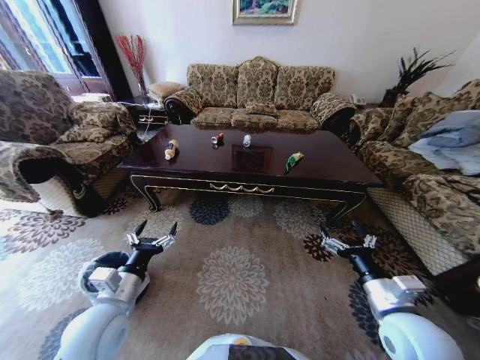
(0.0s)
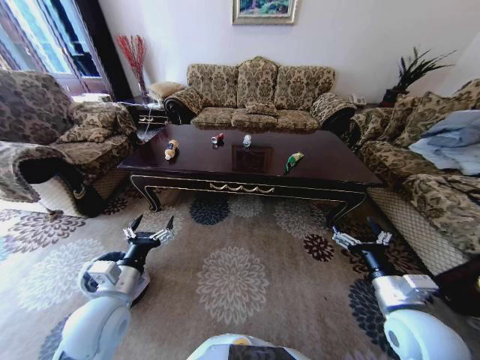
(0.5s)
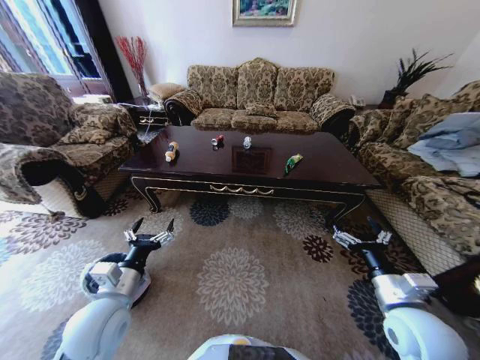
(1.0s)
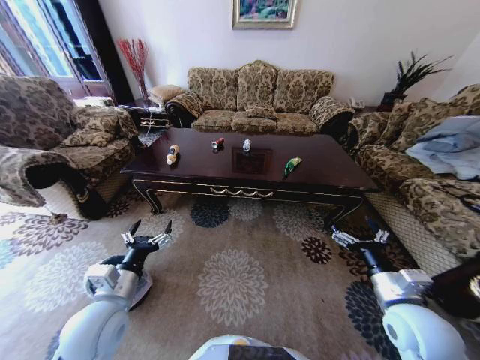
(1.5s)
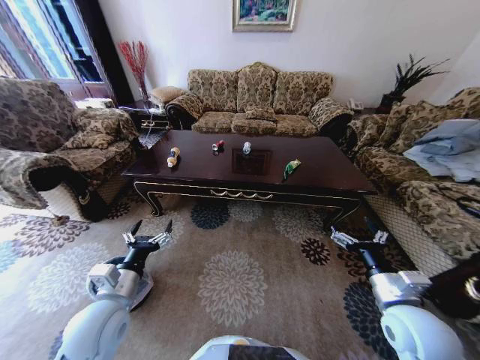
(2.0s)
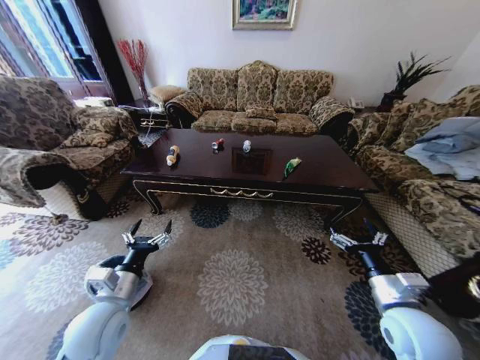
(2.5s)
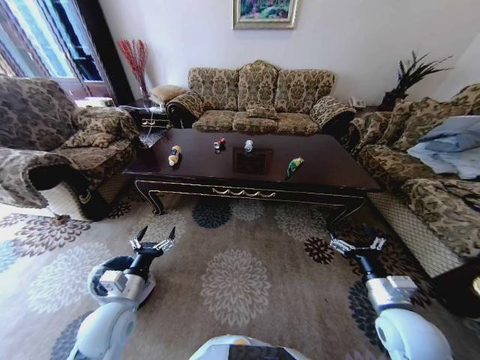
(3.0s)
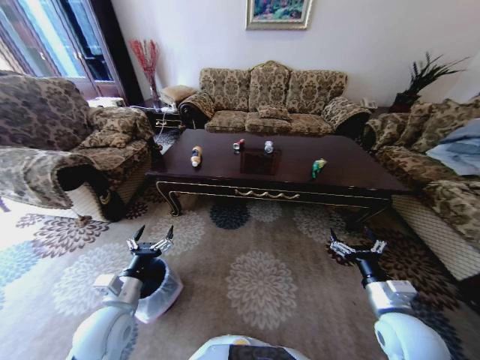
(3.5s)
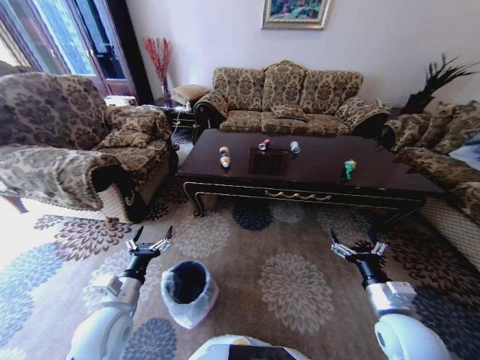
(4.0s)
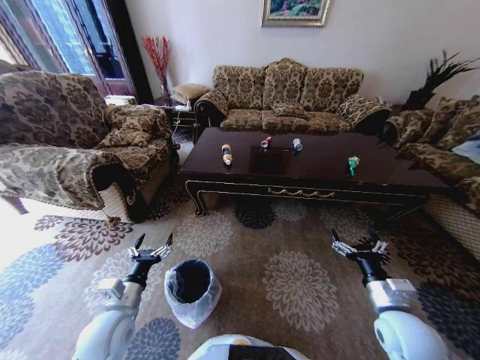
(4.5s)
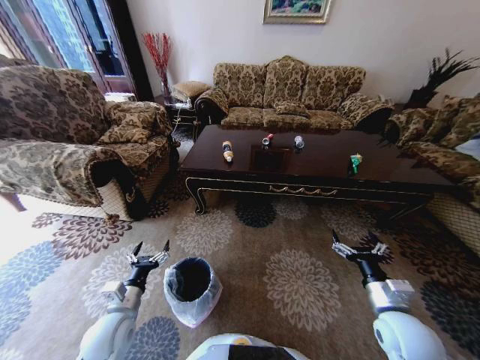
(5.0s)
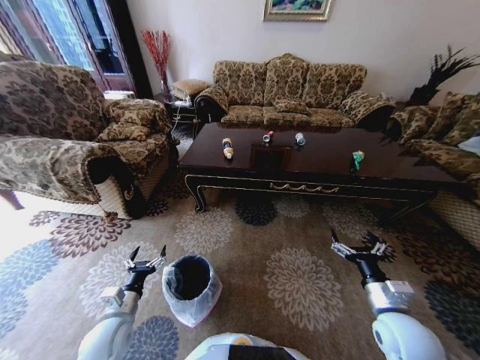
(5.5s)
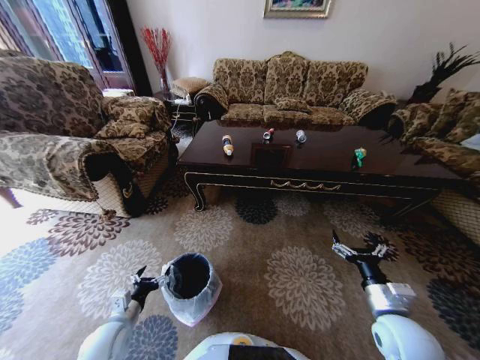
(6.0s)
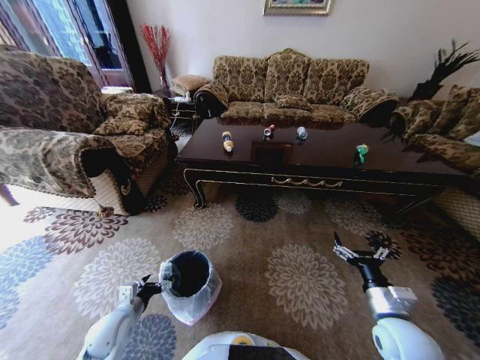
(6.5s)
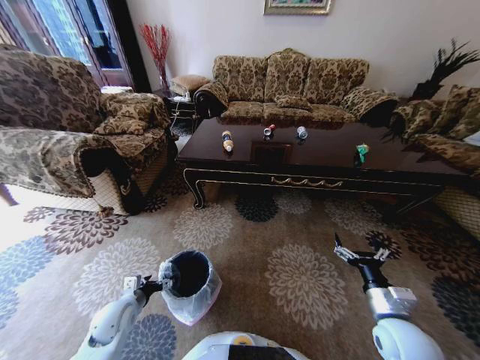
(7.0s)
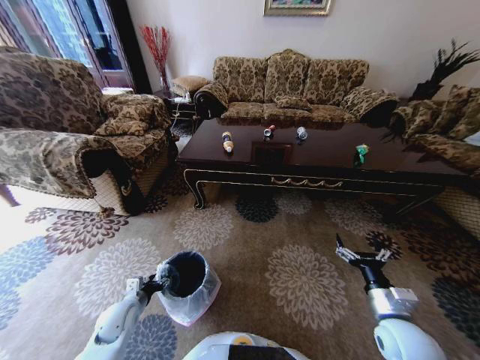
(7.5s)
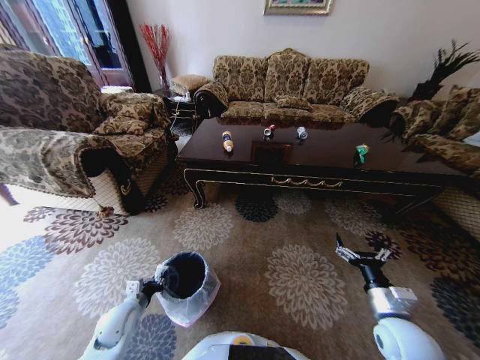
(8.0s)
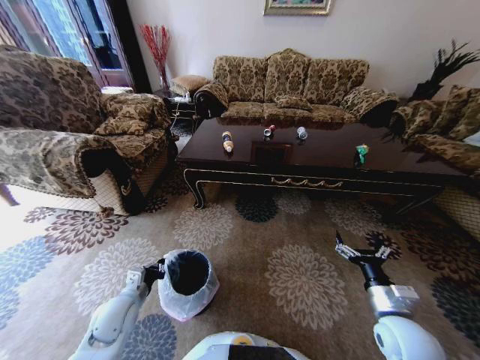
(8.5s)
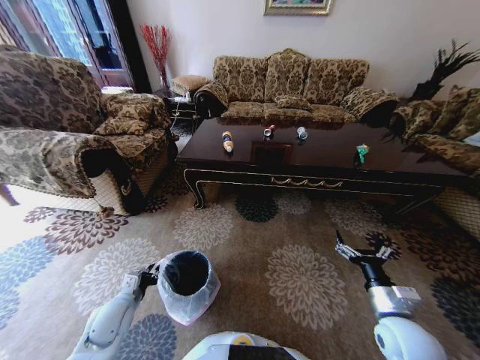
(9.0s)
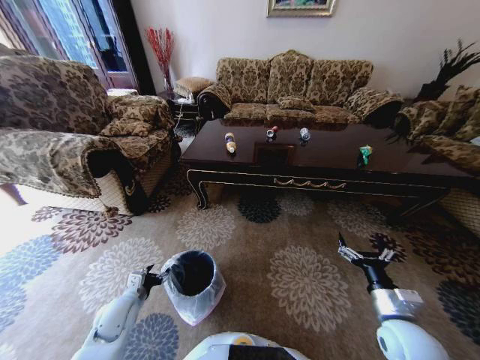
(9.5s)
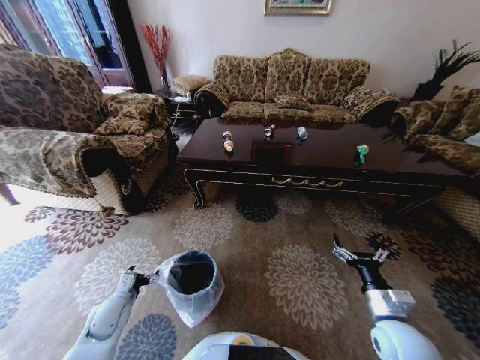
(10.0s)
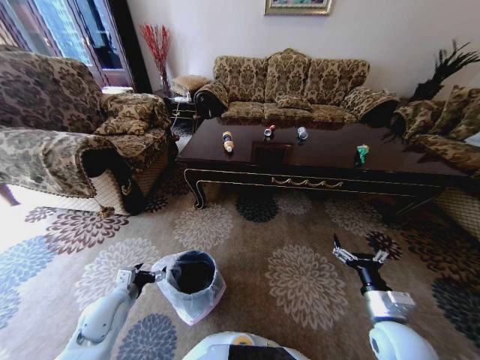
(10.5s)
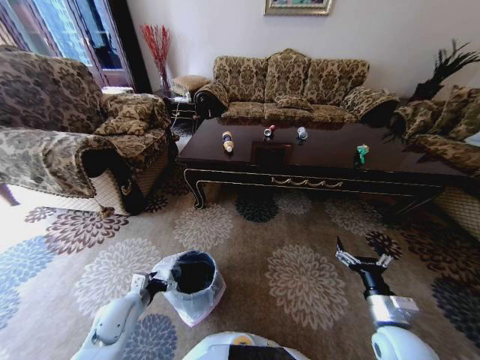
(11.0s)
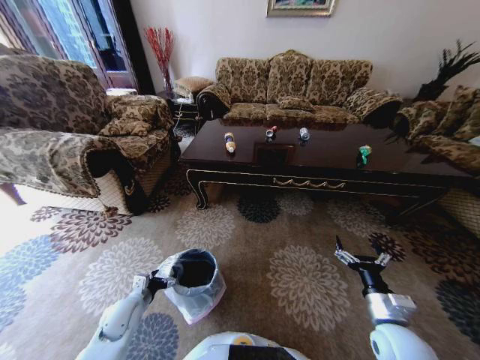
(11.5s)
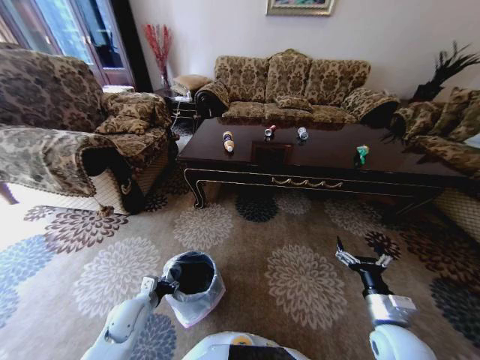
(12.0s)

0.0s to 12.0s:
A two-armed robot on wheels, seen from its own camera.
Task of the whole recording: Move to the front of the table and place the trash on the table into the trash bin.
4.0s to 6.0s: The left gripper goes some 10 cm downward.
6.0s to 8.0s: The left gripper shifts by approximately 5 cm, and closes.
8.0s to 10.0s: The left gripper opens up.
10.0s to 12.0s: The left gripper is displaced to the right by some 5 cm, and closes up.

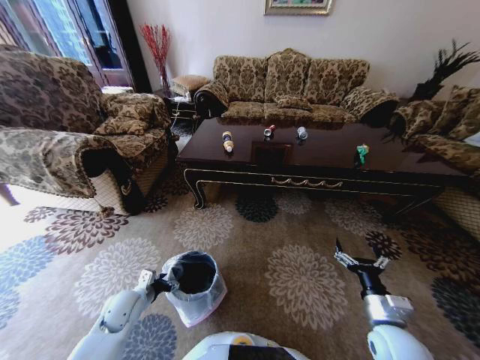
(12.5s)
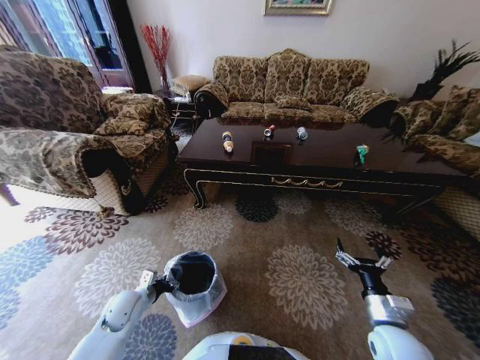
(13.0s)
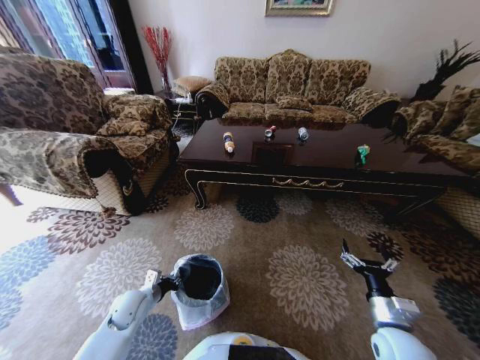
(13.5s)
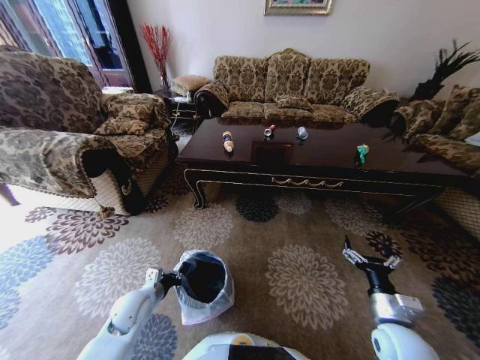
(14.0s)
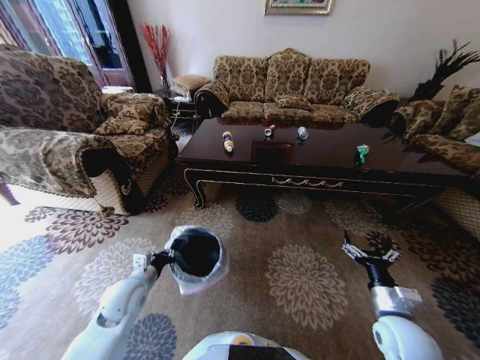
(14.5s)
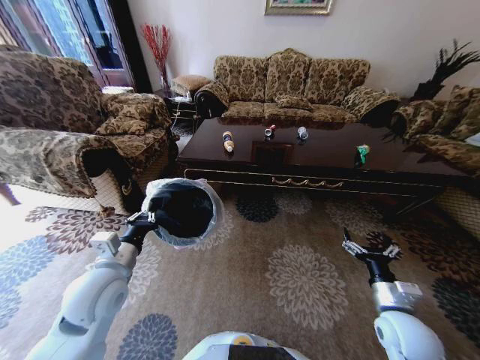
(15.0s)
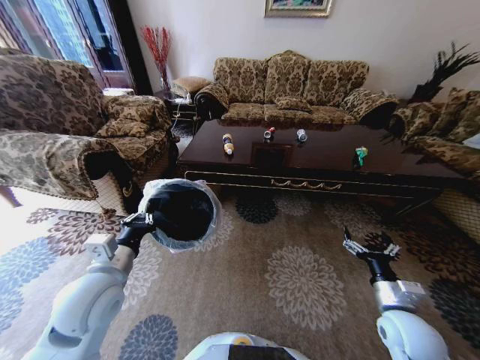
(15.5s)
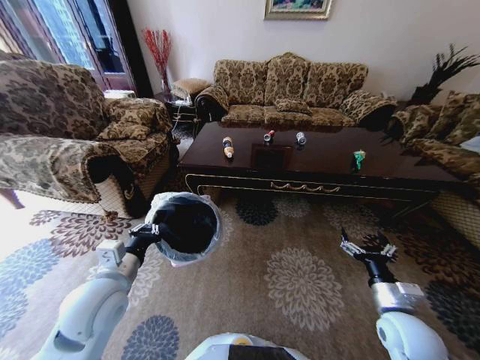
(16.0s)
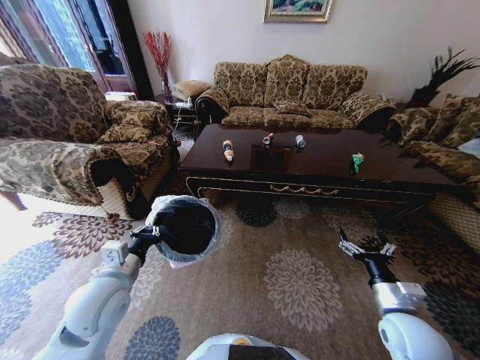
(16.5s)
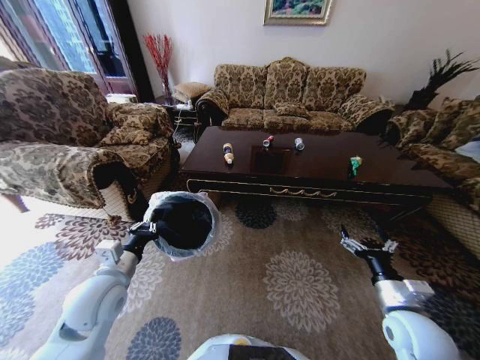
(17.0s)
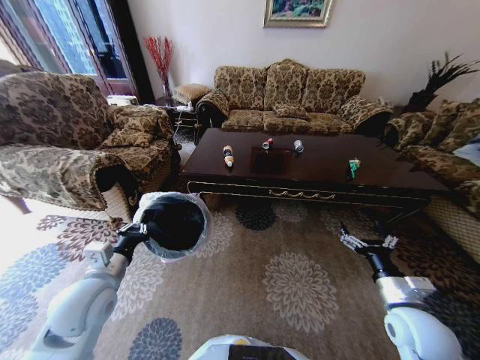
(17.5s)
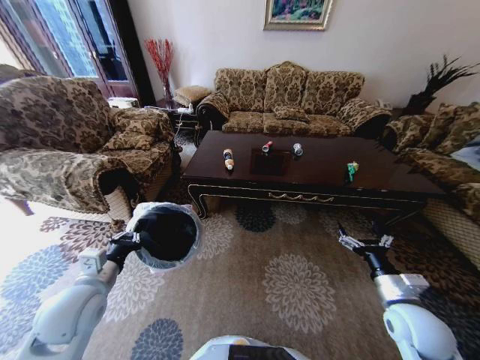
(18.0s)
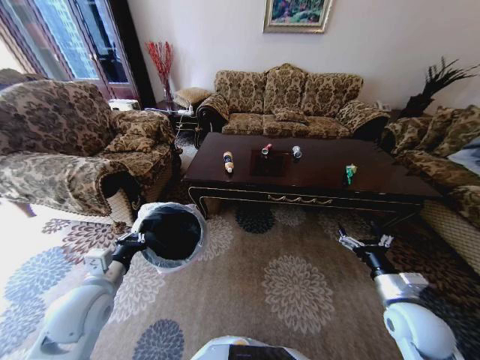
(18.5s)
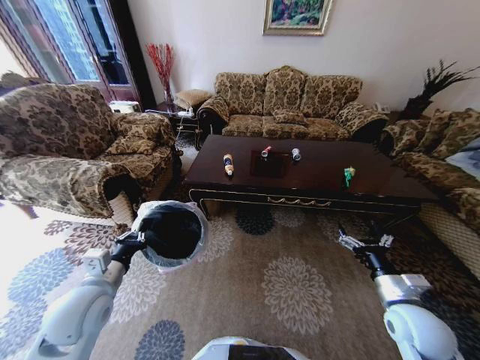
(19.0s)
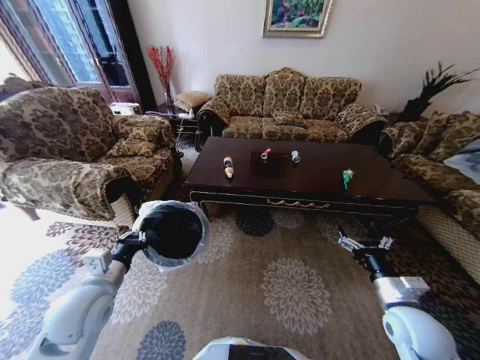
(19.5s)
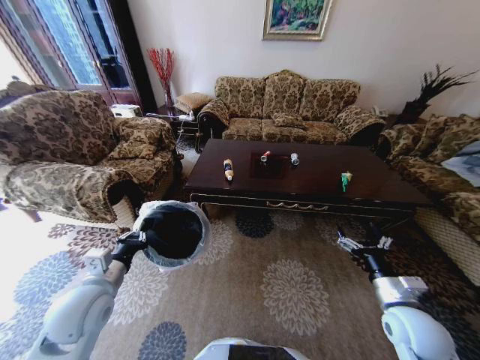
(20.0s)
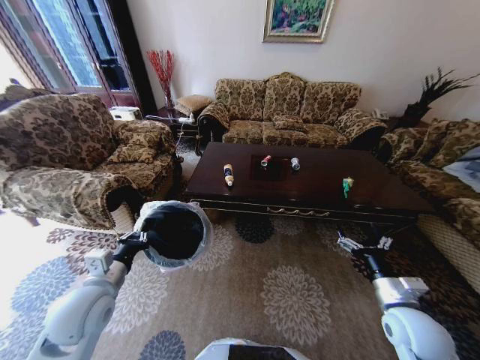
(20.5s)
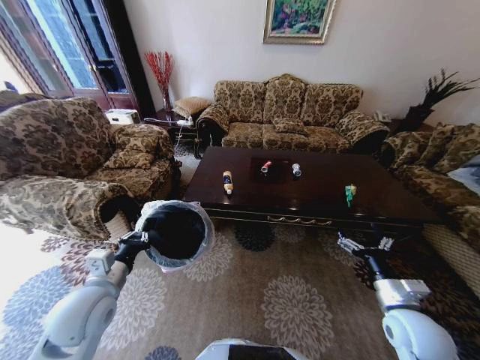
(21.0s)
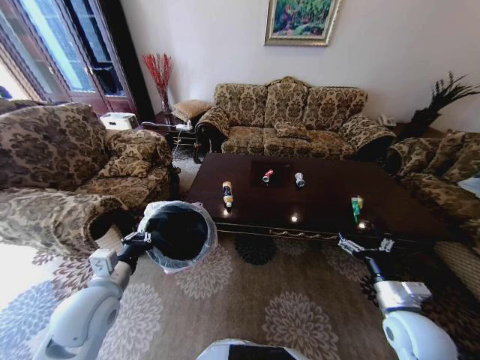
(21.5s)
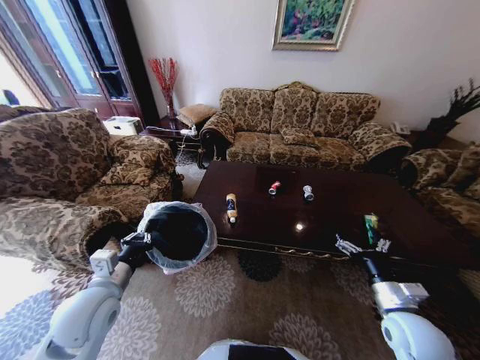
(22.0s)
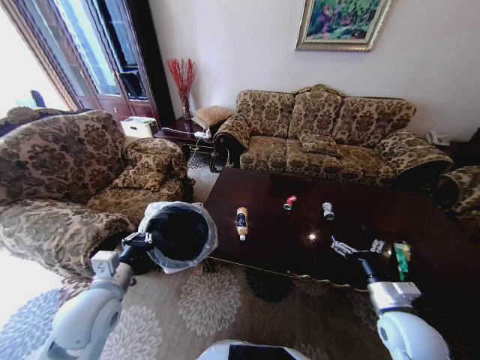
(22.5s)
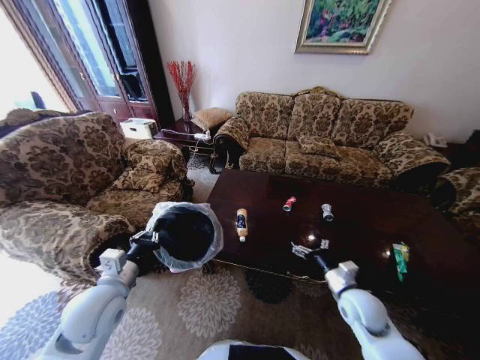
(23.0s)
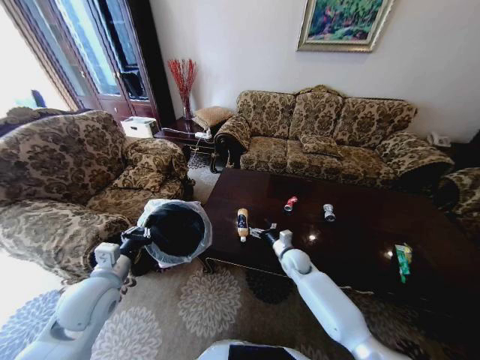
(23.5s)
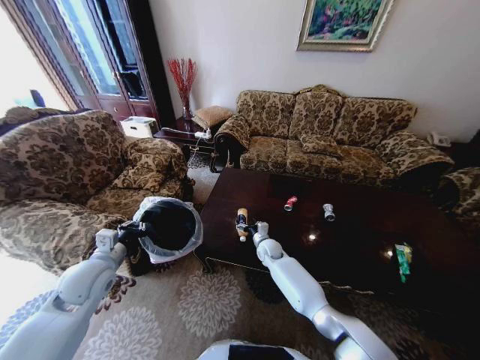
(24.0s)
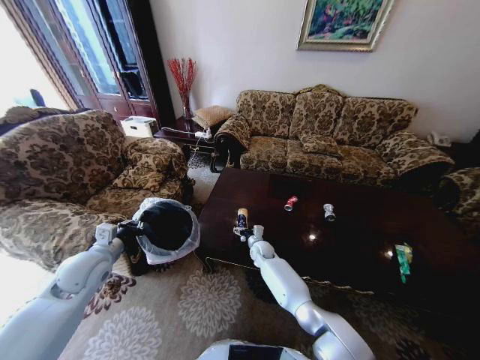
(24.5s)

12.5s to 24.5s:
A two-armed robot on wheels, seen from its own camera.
Task of the whole recording: Move to the front of the table and place the trash on the table into the trash bin.
12.5s to 14.5s: The left gripper goes approximately 10 cm upward, and closes its fingers.
14.5s to 16.5s: The left gripper heads upward, covering approximately 10 cm.
16.5s to 18.5s: The left gripper changes place by roughly 5 cm.
22.5s to 24.5s: The right gripper is displaced forward, to the left and downward by about 40 cm; the left gripper travels forward and to the left by approximately 10 cm.

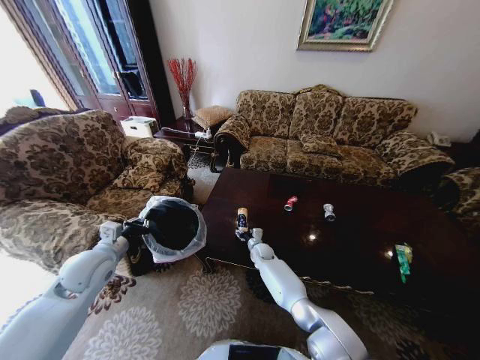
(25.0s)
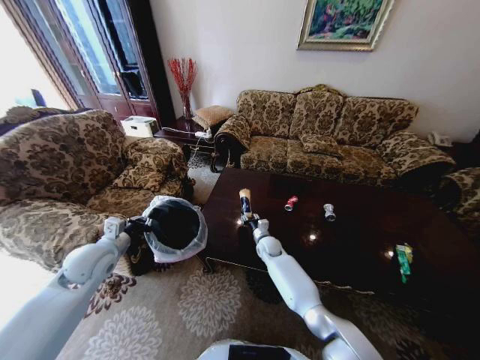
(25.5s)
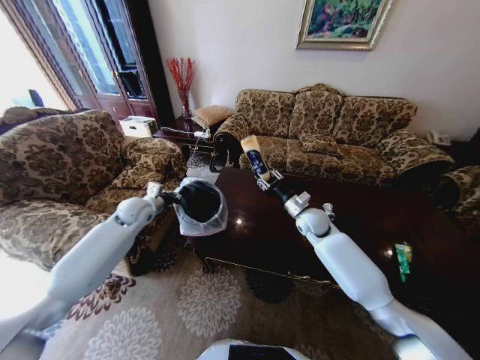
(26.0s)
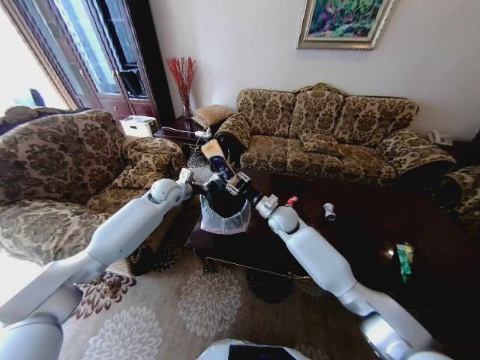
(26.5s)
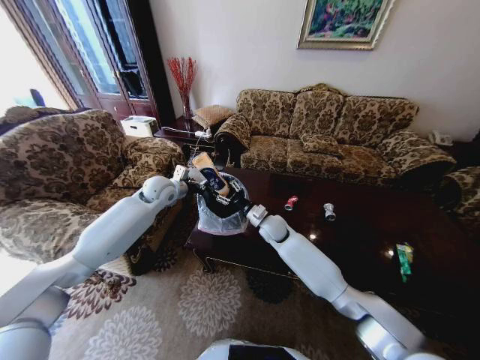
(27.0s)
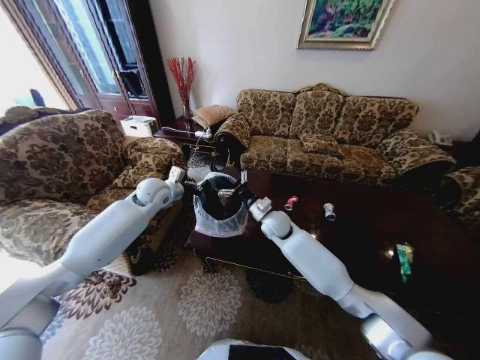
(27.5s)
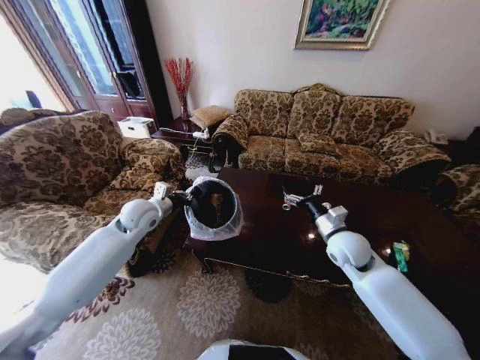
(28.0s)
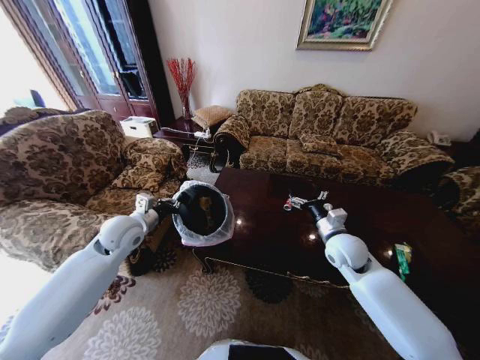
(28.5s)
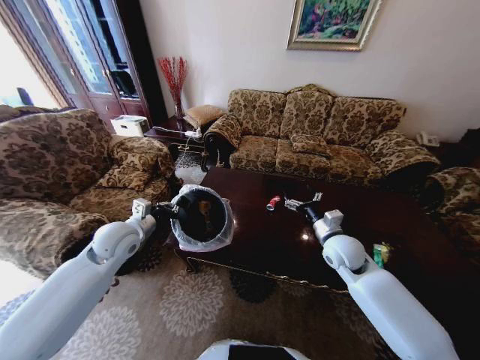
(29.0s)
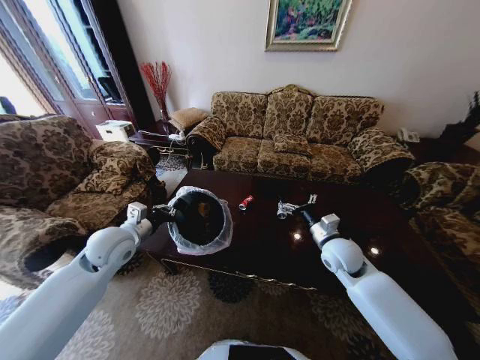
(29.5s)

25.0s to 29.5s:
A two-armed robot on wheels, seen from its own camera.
Task of the whole recording: Move to the front of the table and place the trash on the table into the trash bin.
25.0s to 27.0s: The right gripper goes about 20 cm upward, while the left gripper travels forward and to the right by some 25 cm.
27.0s to 29.5s: The left gripper moves backward, roughly 20 cm. The right gripper is displaced to the right and backward by some 20 cm, and opens up.
